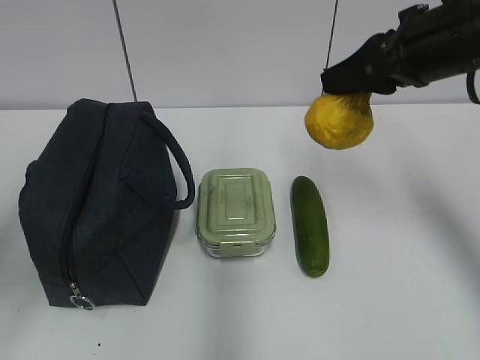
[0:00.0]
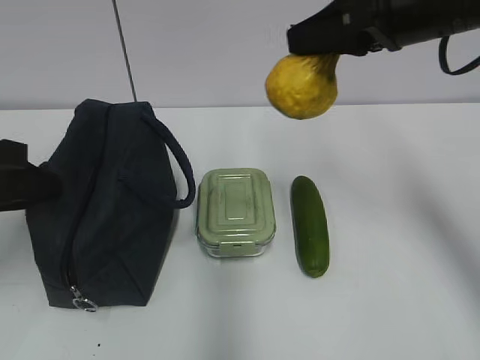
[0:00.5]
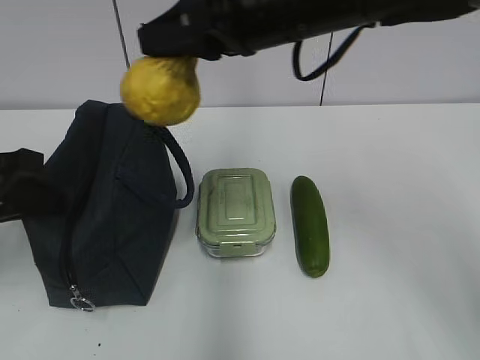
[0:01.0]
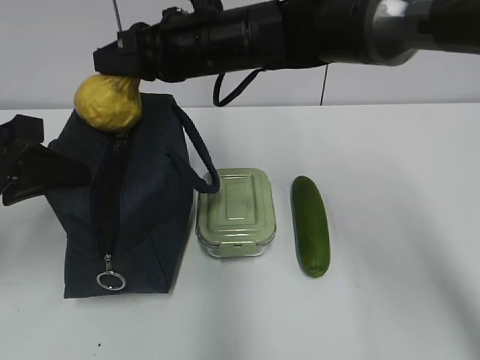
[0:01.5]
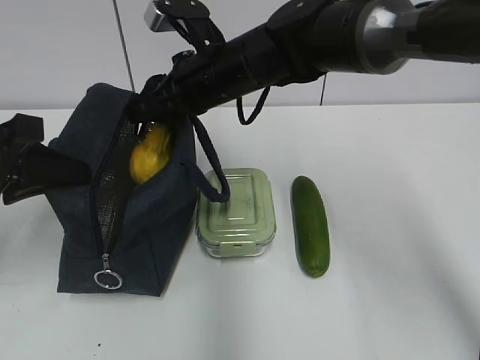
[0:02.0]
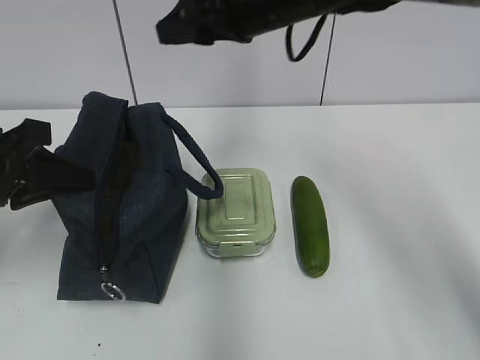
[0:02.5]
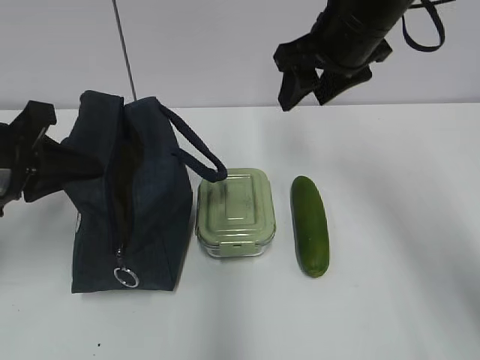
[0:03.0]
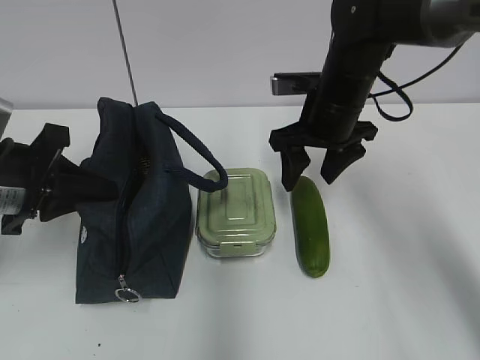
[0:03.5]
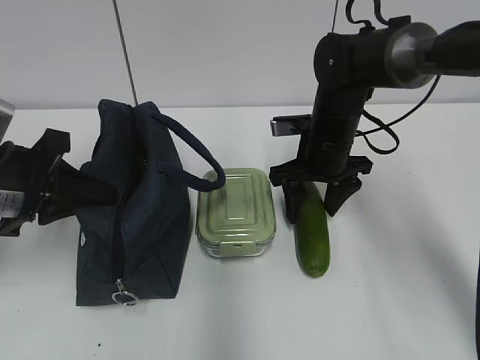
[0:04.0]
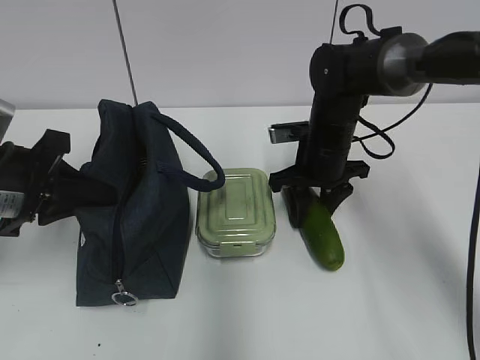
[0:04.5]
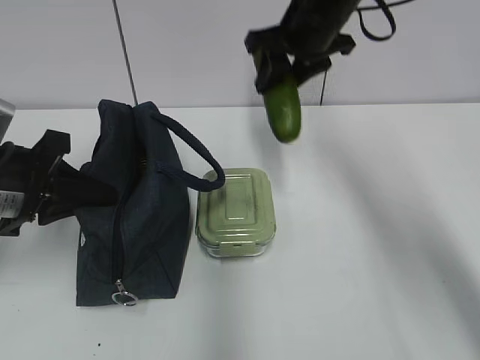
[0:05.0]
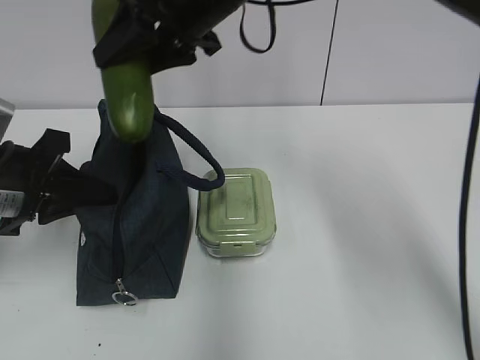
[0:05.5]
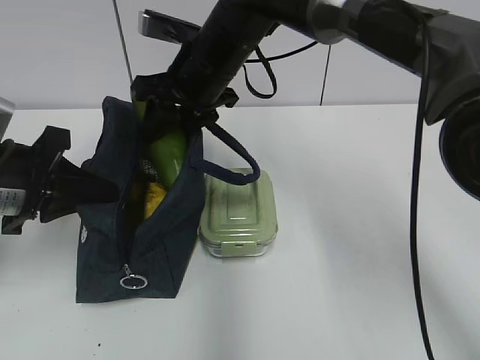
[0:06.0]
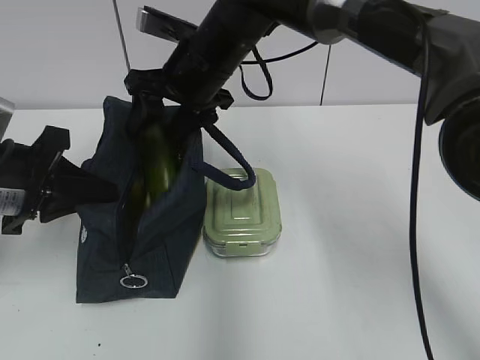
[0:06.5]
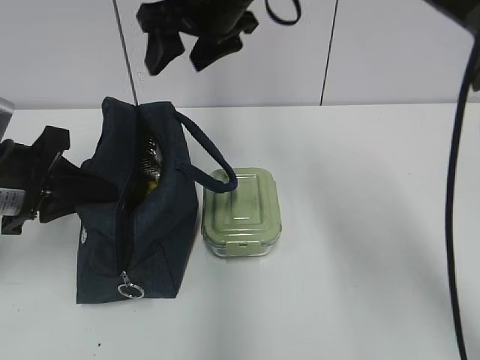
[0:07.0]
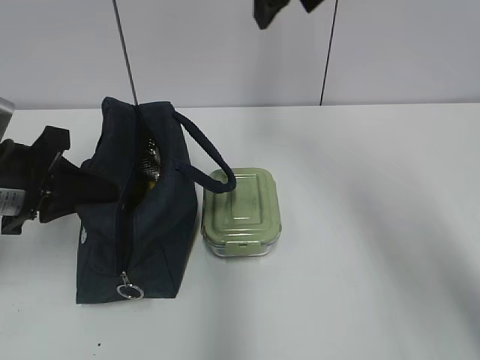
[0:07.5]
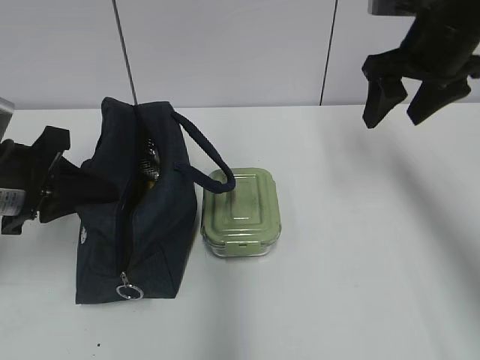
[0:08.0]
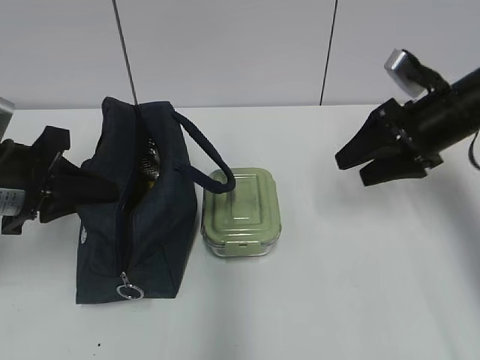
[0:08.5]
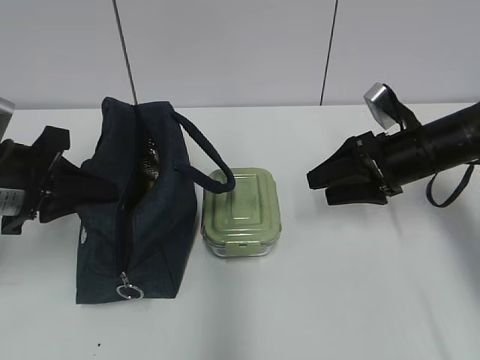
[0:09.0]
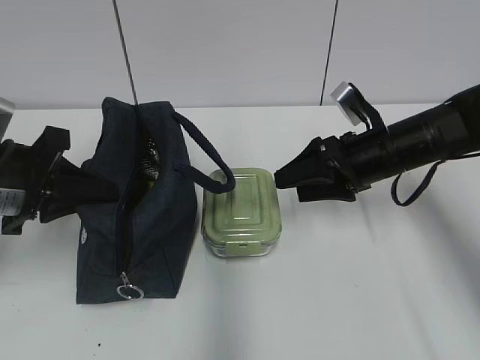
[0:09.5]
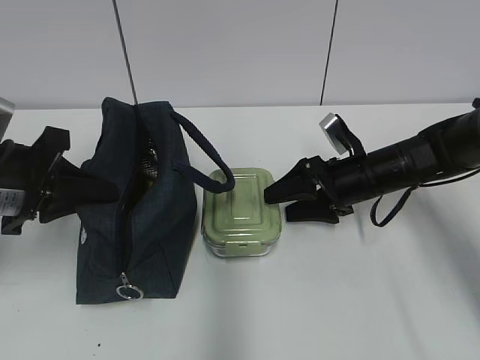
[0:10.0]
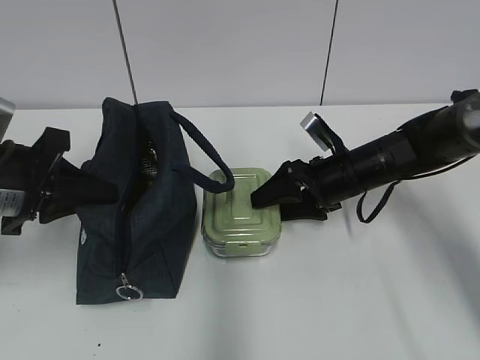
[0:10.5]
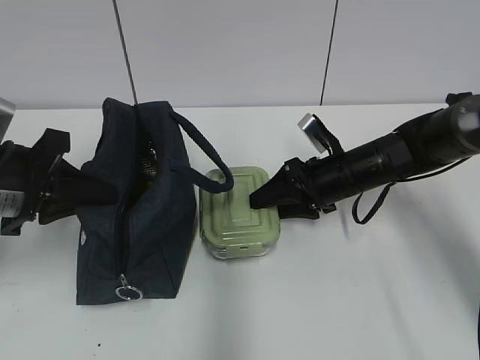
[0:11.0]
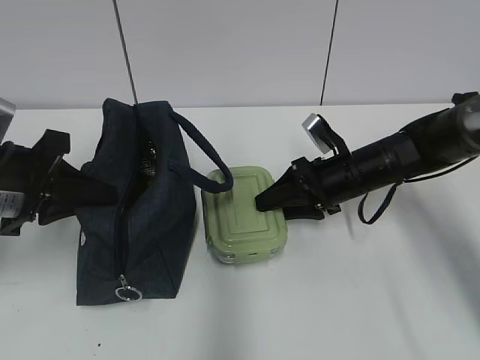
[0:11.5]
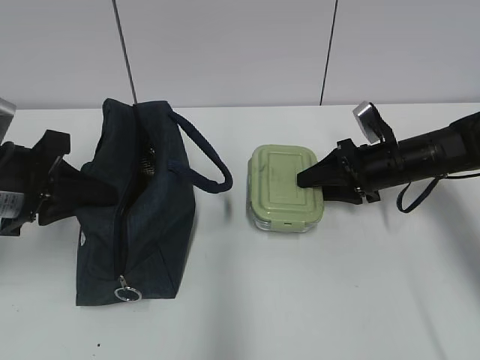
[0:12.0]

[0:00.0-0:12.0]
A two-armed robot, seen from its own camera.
Step, 1.0 to 2.0 s: Place it into the bag with your right hand.
Step, 2.5 to 4.5 s: Grab the cucumber with your right hand.
Step, 5.0 to 6.5 s: Place it into the bag with your right hand.
Step, 7.0 to 11.5 s: Grab the lunch box with your right hand.
0.0 to 2.0 s: The left gripper goes about 15 cm forward and downward, and closes. Meanwhile the right gripper goes approximately 20 cm to the left and forward.
2.0 to 4.0 s: The right gripper is displaced to the right and downward by approximately 15 cm.
4.0 to 6.0 s: The right gripper heads to the left and upward, covering about 15 cm.
6.0 to 8.0 s: The right gripper goes about 25 cm to the right, and opens.
8.0 to 10.0 s: The right gripper moves downward, approximately 20 cm.
10.0 to 12.0 s: The right gripper shifts by roughly 5 cm, and closes up.

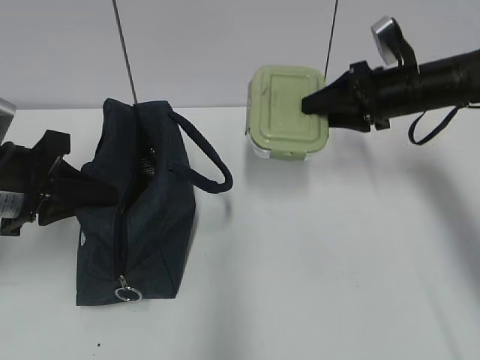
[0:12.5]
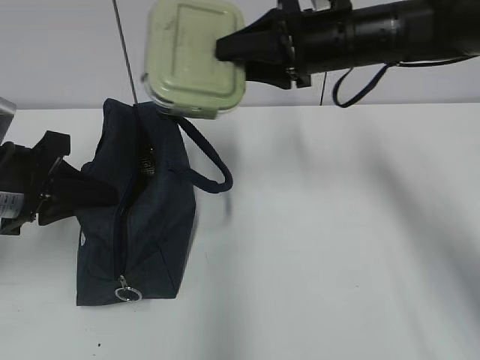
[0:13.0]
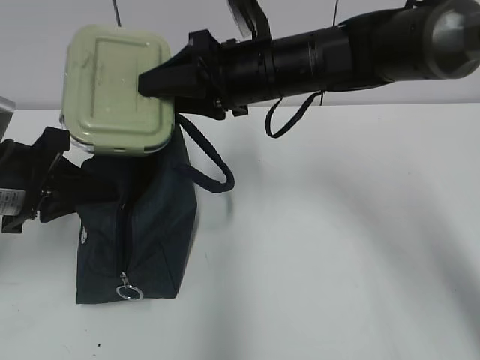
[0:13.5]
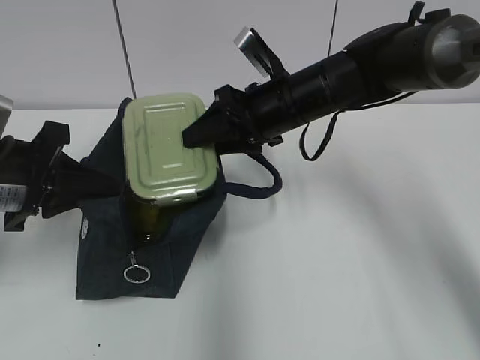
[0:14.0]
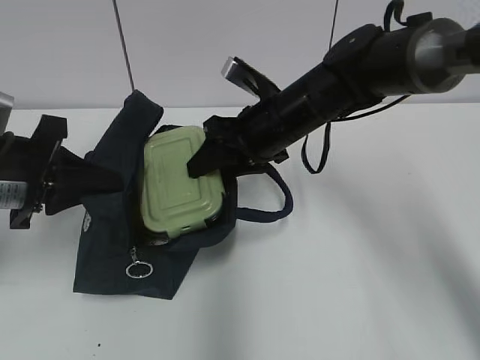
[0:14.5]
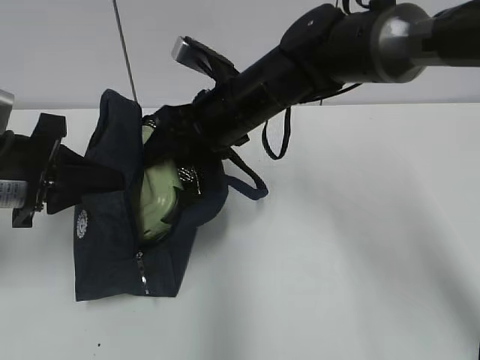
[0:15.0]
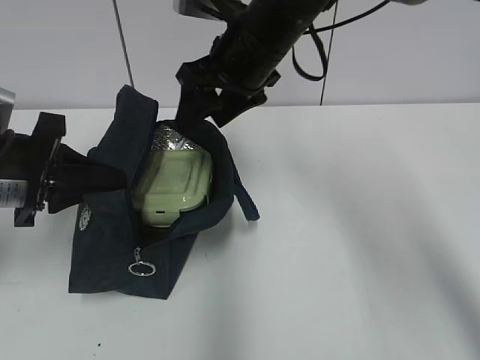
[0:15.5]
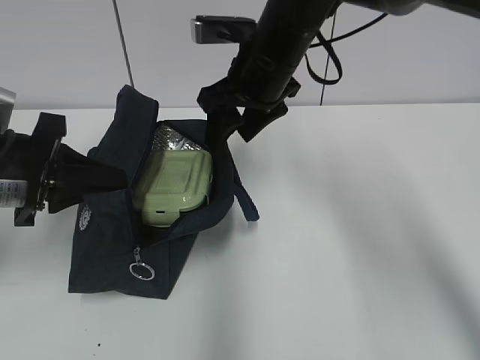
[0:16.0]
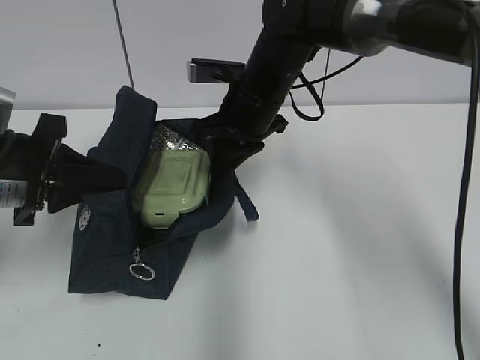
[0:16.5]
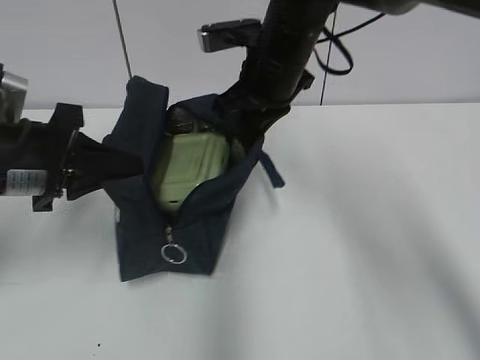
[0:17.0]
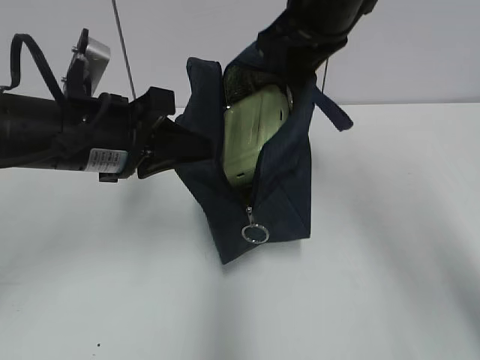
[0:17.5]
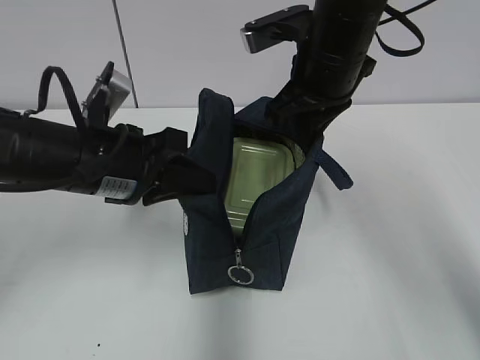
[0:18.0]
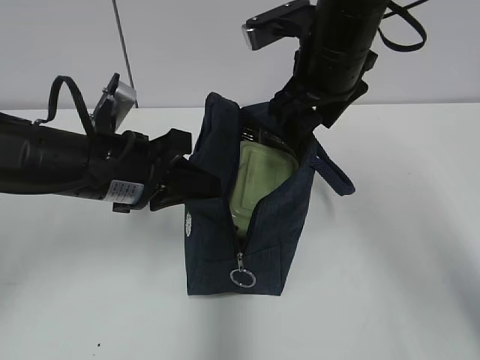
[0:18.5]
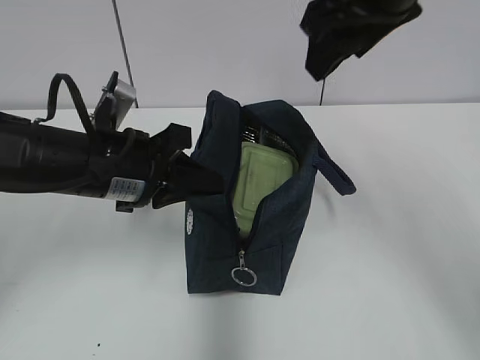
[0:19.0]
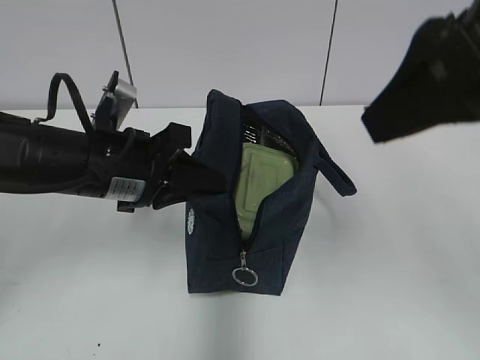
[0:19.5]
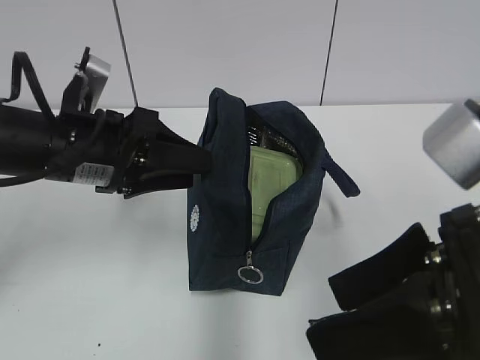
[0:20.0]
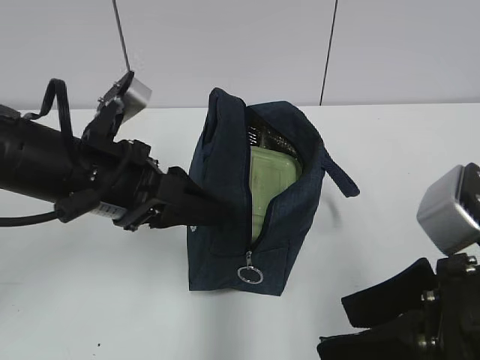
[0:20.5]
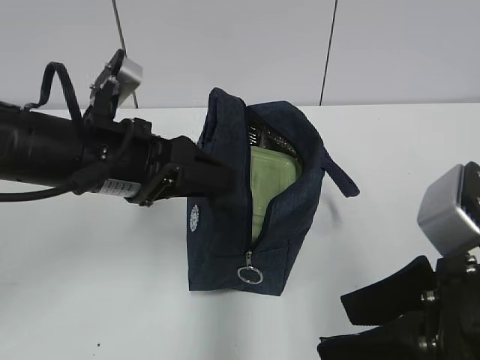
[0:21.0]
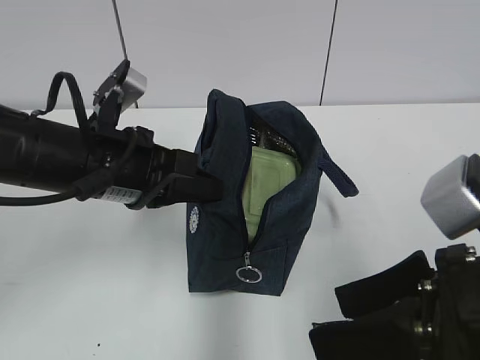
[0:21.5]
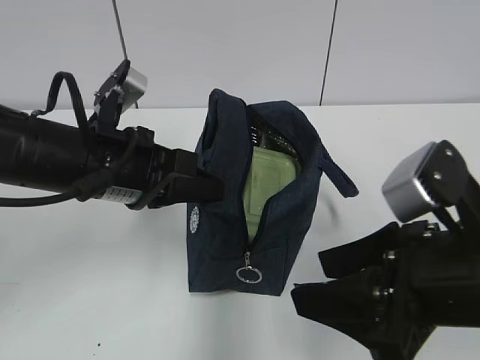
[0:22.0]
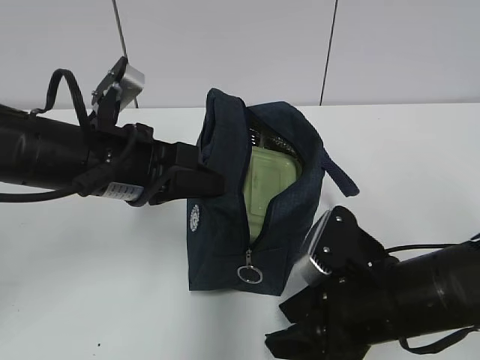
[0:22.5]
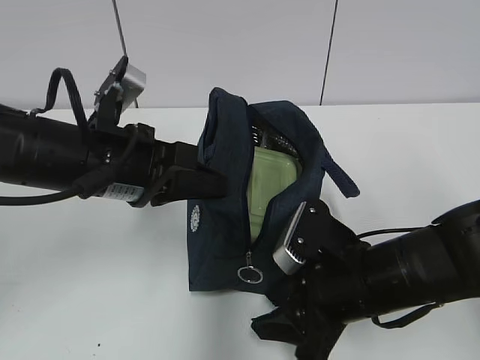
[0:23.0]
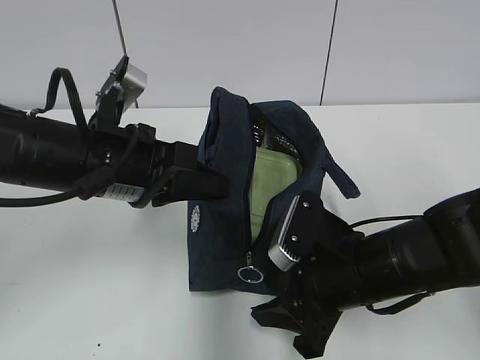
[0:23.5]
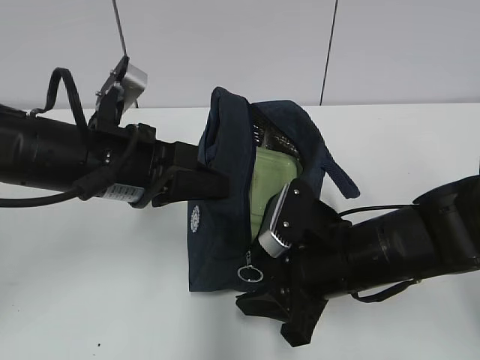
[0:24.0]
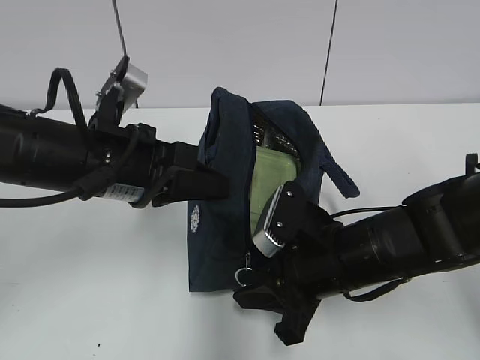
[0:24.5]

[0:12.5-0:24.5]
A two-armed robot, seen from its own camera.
Step, 15.5 to 16.5 s: Grab the lunch bag with your right hand.
Step, 17.0 to 18.0 s: Move the lunch bag to the right.
Step, 18.5 to 21.0 s: Grab the lunch bag with your left hand.
12.5 to 14.5 s: The right gripper travels to the left by approximately 15 cm.
14.5 to 16.5 s: The right gripper reaches roughly 10 cm upward, then returns, and closes its fingers.
16.5 to 18.5 s: The right gripper goes approximately 10 cm upward and to the right, and opens up; the left gripper moves to the right, roughly 10 cm.
18.5 to 20.5 s: The left gripper opens its fingers. The right gripper is displaced backward by approximately 25 cm.
20.5 to 22.5 s: The right gripper moves downward and forward, roughly 15 cm; the left gripper closes its fingers.
22.5 to 24.5 s: The right gripper goes some 5 cm forward, and closes its fingers.

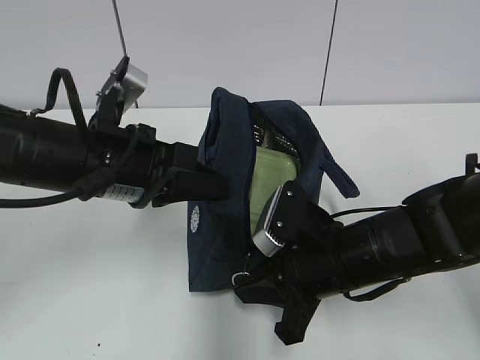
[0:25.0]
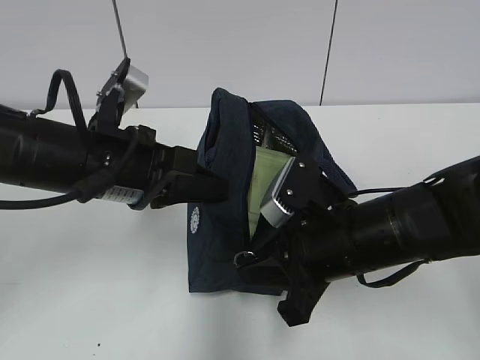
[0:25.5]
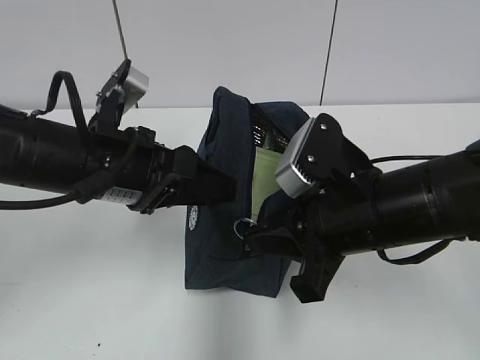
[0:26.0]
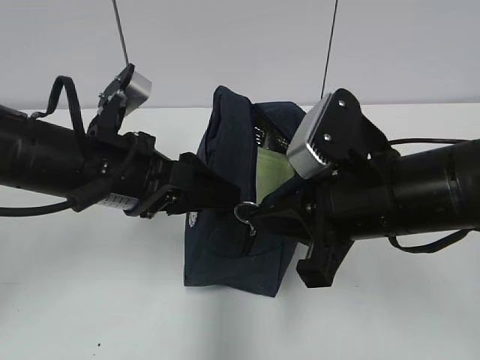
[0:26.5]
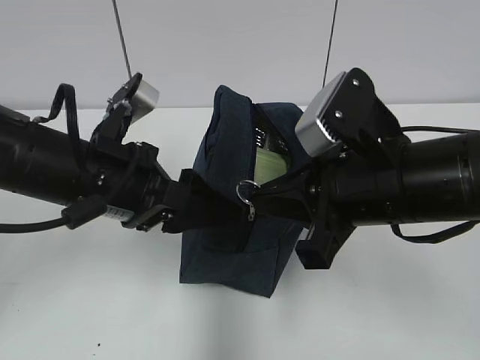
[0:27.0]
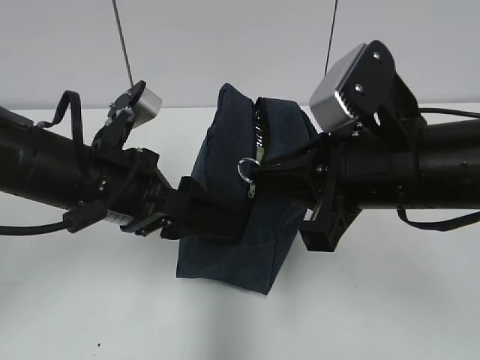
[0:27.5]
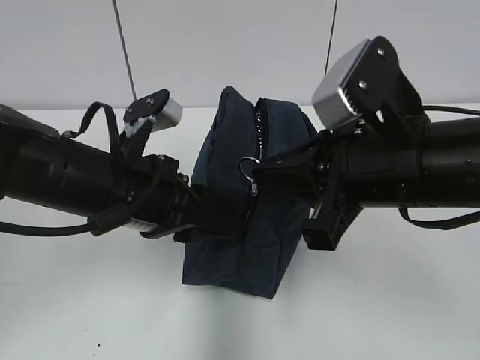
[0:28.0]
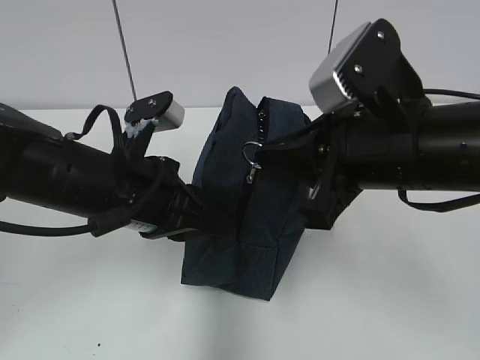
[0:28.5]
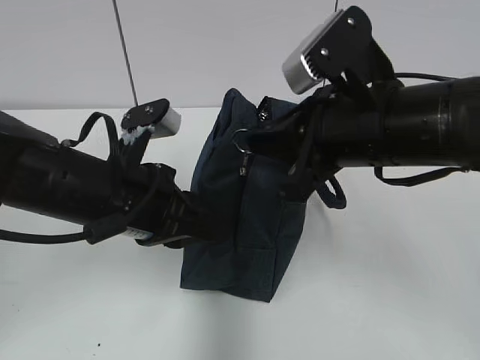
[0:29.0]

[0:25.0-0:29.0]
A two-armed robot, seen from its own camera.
25.0 to 27.0 s: The right gripper goes roughly 10 cm upward. The left gripper opens its fingers.
27.0 to 29.0 s: The left gripper closes its fingers.
